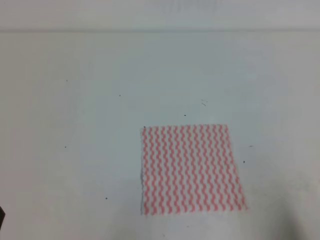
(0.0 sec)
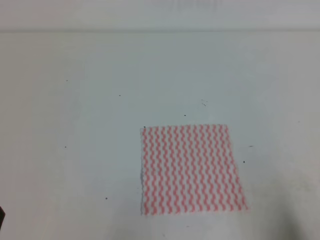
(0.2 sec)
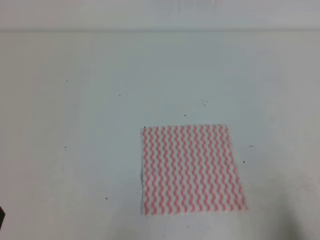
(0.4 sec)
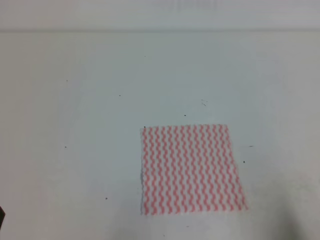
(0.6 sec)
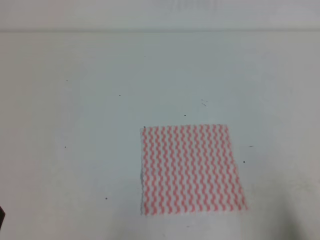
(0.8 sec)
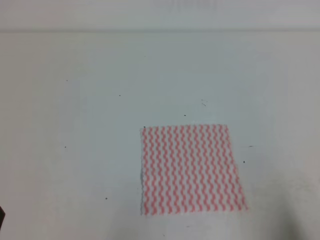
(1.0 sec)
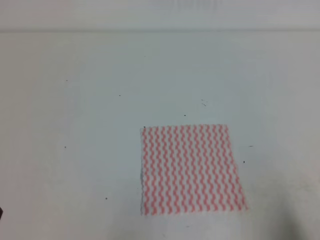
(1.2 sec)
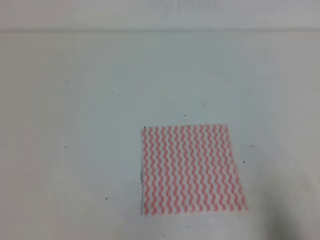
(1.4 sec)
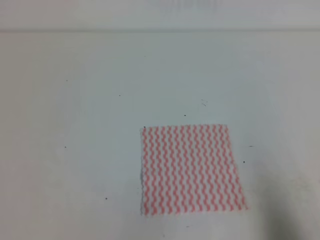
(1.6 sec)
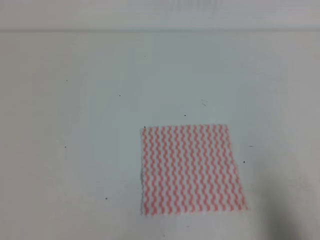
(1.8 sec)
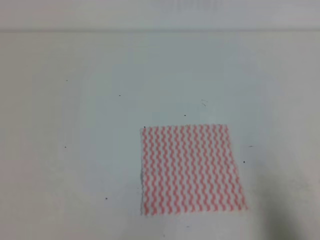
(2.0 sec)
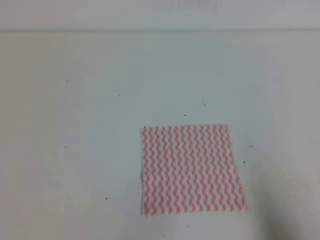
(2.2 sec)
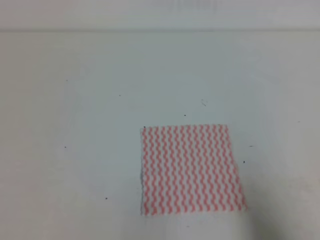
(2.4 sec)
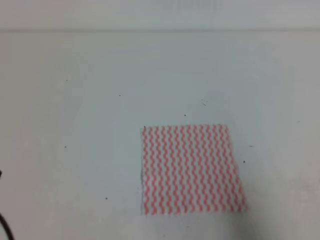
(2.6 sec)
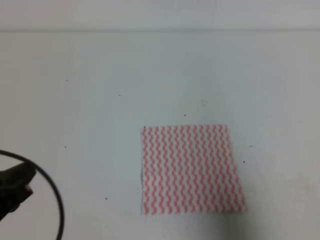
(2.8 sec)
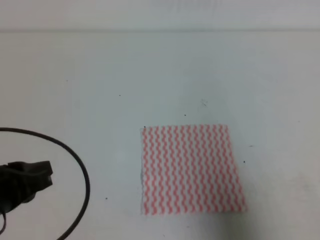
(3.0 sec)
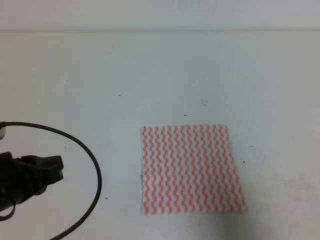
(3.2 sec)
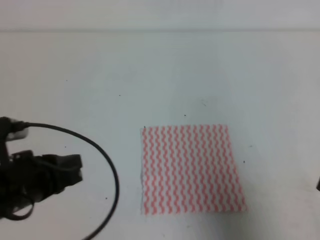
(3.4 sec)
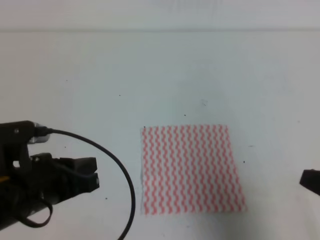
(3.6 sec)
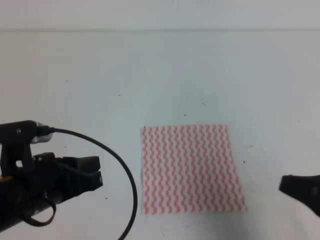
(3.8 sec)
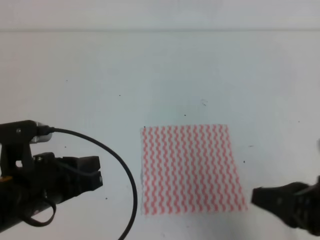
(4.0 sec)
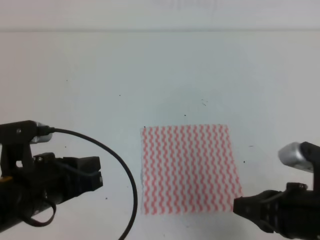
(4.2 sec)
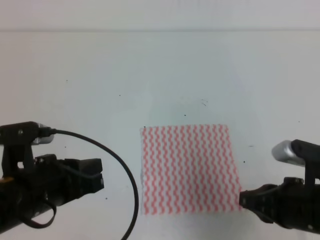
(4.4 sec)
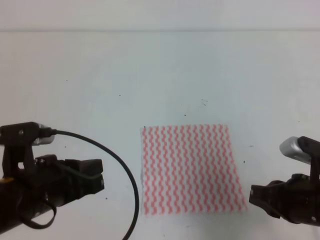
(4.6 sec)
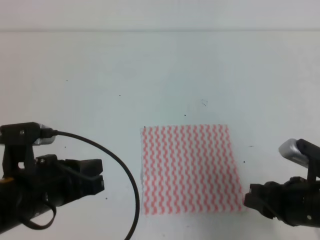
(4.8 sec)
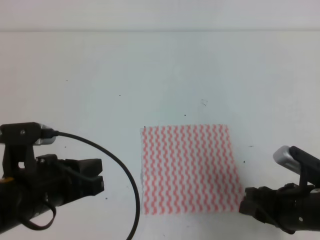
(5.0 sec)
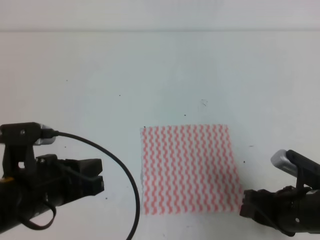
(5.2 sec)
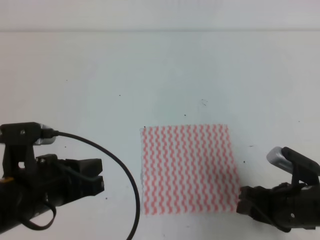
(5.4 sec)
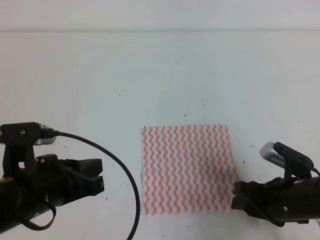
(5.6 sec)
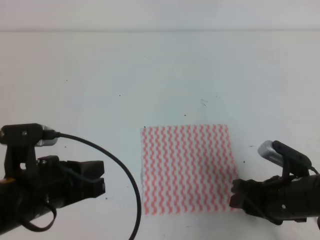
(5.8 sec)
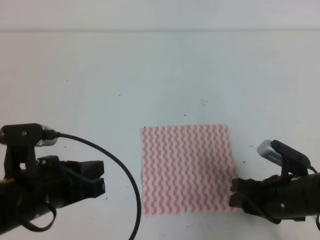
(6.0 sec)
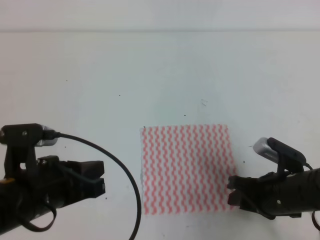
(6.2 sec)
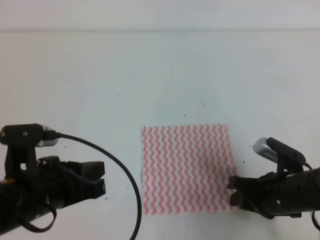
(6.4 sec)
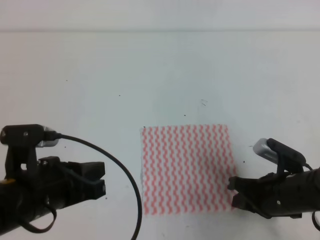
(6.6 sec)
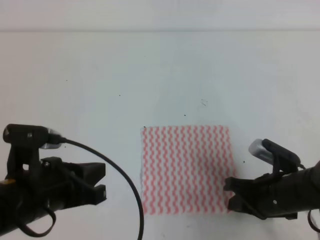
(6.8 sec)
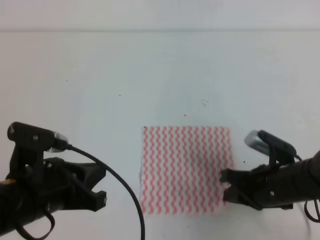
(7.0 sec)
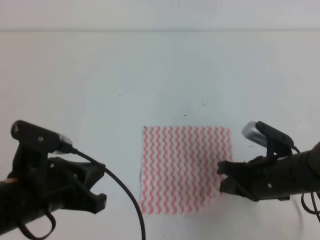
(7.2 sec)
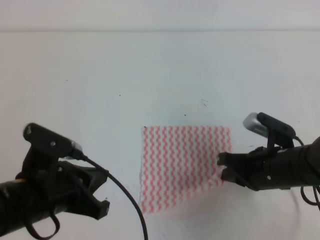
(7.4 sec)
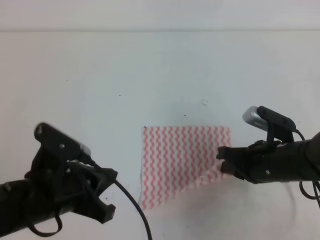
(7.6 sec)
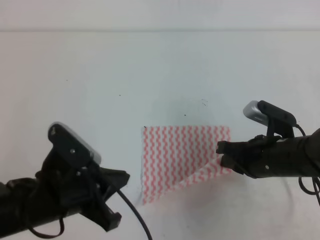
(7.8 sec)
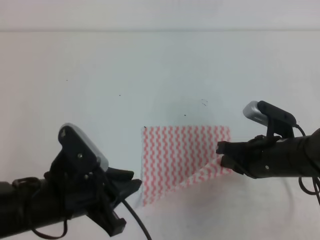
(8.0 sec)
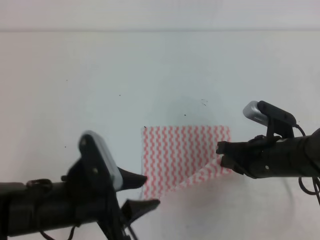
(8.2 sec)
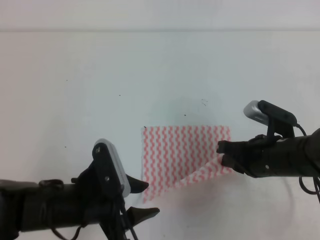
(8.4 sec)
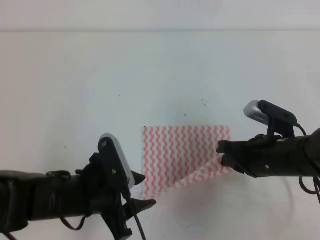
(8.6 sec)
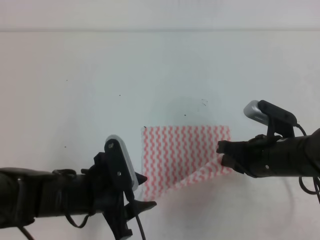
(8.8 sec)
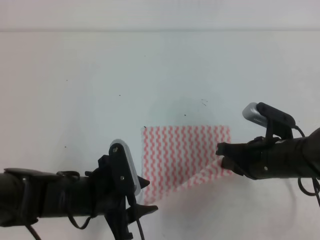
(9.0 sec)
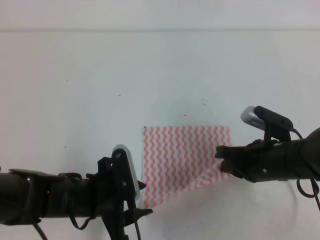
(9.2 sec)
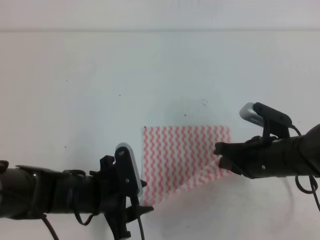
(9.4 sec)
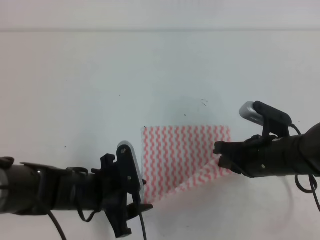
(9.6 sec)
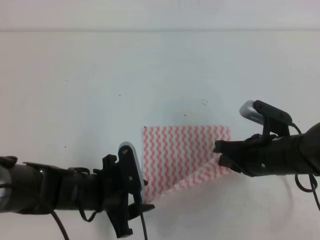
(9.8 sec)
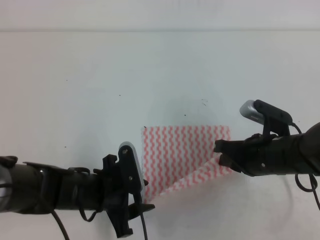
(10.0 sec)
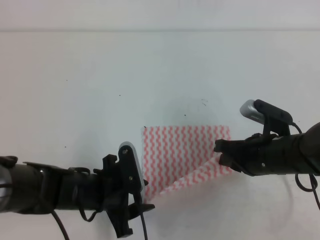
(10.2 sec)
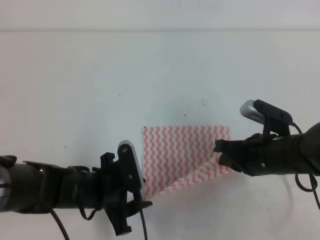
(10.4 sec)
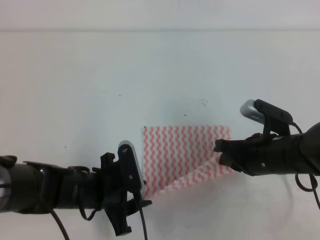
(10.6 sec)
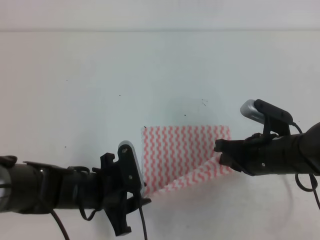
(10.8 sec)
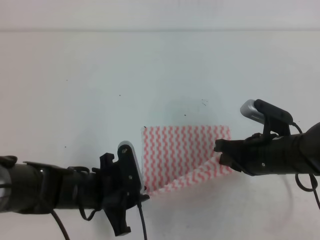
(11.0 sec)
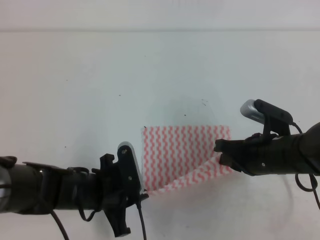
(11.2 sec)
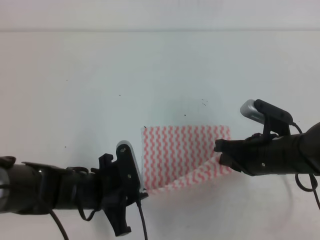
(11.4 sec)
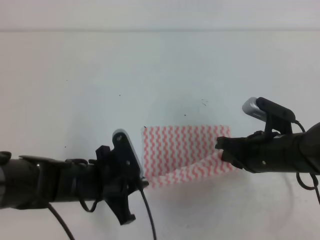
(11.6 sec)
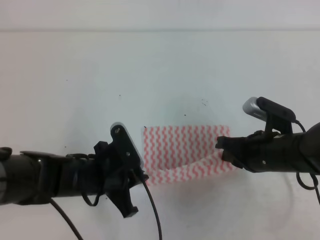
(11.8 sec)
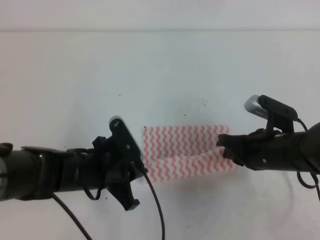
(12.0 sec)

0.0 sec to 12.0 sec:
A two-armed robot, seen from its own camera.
1.6 sec to 3.0 sec: The right gripper shifts roughly 5 cm upward. Meanwhile the left gripper is displaced forward and upward by some 10 cm.
3.0 sec to 4.4 sec: The left gripper heads to the right, covering some 5 cm; the right gripper travels to the left, forward and downward by approximately 10 cm.
4.4 sec to 6.0 sec: The right gripper shifts roughly 10 cm downward, and opens its fingers.
6.0 sec to 7.6 sec: The right gripper moves roughly 5 cm, and closes up.
7.6 sec to 9.0 sec: The left gripper travels downward by some 5 cm, and opens its fingers.
9.0 sec to 10.4 sec: There are only small adjustments of the grippers.
10.4 sec to 12.0 sec: The left gripper closes up.

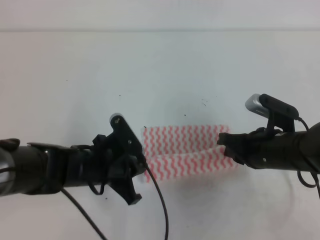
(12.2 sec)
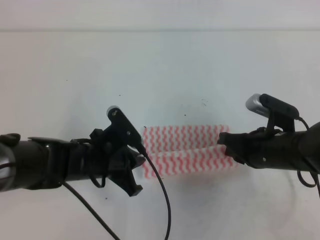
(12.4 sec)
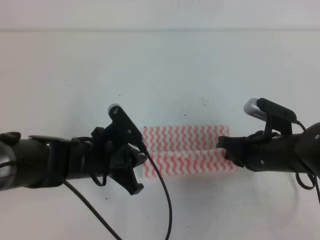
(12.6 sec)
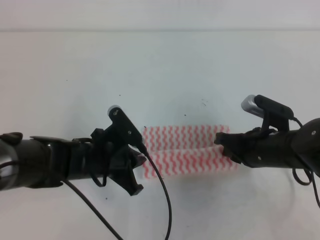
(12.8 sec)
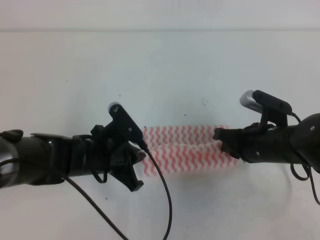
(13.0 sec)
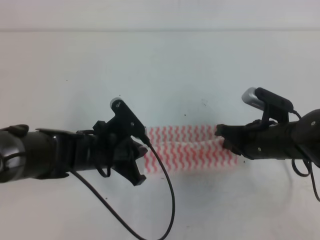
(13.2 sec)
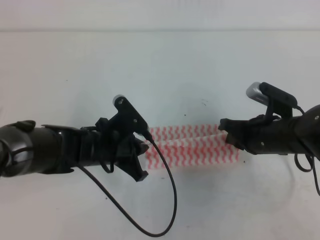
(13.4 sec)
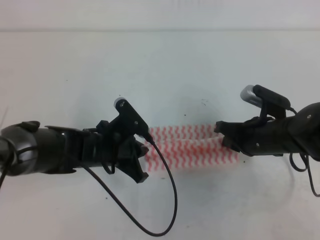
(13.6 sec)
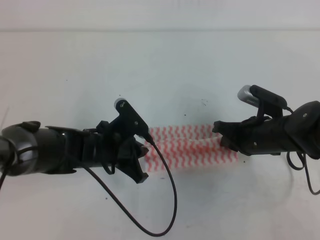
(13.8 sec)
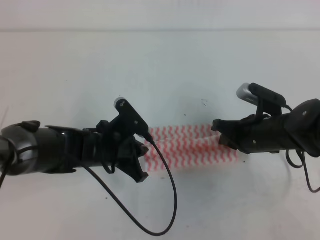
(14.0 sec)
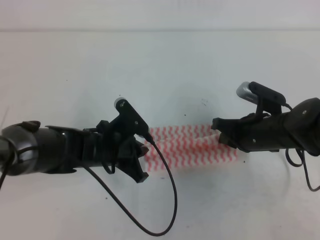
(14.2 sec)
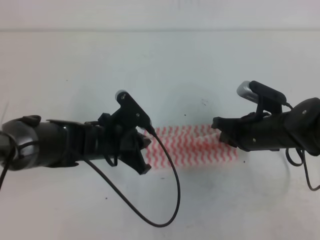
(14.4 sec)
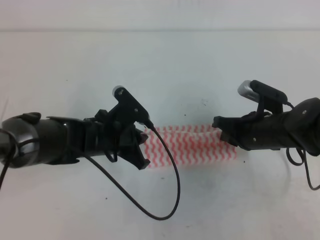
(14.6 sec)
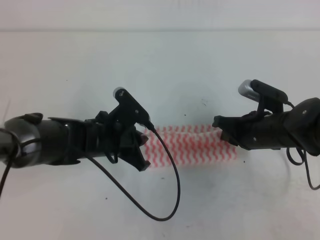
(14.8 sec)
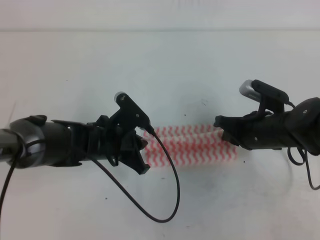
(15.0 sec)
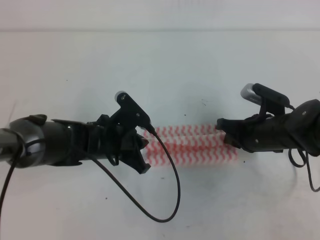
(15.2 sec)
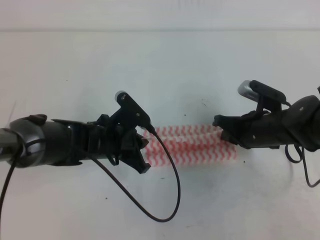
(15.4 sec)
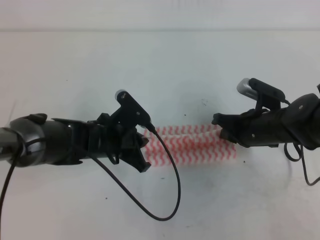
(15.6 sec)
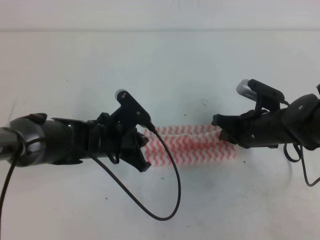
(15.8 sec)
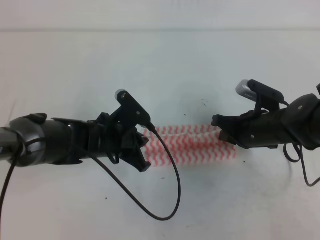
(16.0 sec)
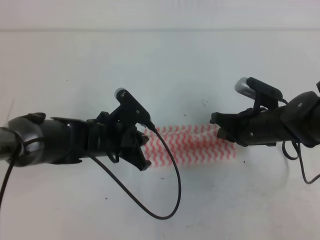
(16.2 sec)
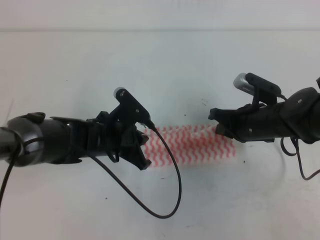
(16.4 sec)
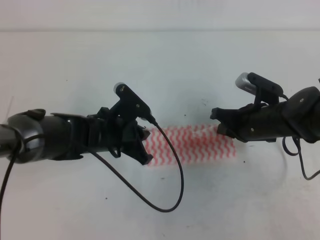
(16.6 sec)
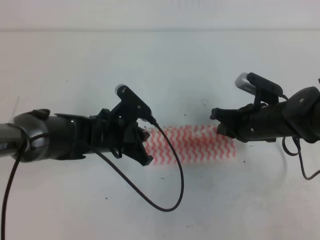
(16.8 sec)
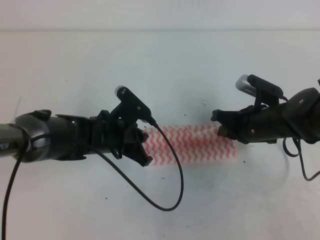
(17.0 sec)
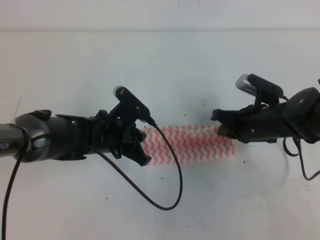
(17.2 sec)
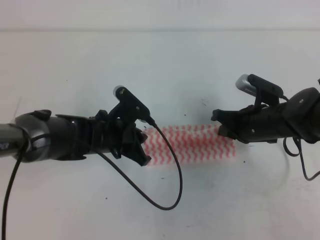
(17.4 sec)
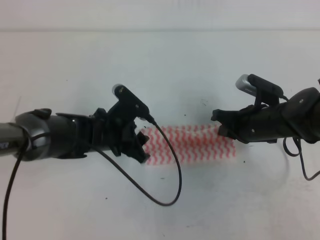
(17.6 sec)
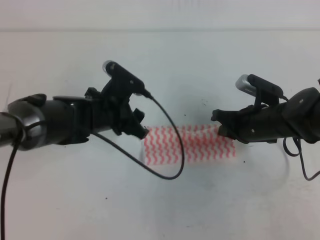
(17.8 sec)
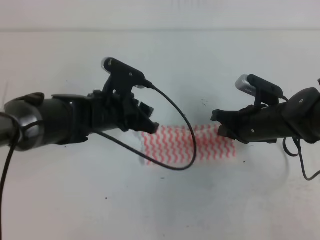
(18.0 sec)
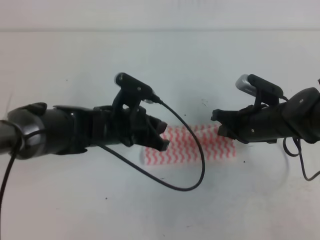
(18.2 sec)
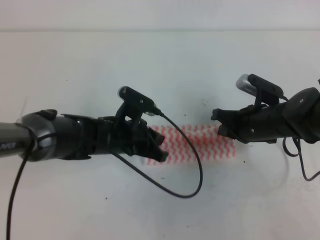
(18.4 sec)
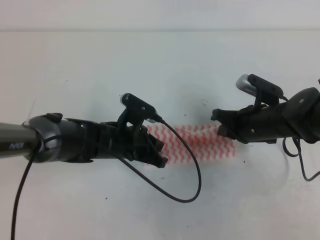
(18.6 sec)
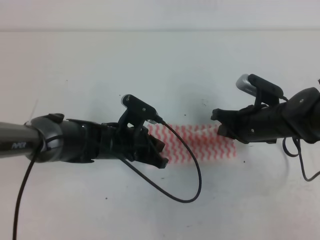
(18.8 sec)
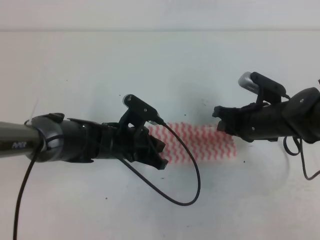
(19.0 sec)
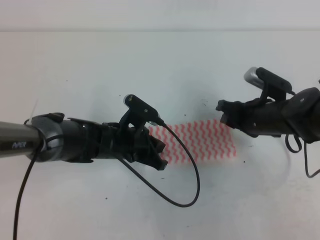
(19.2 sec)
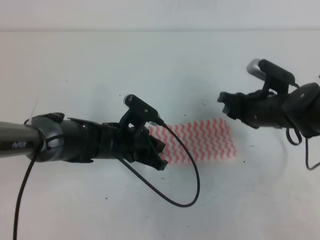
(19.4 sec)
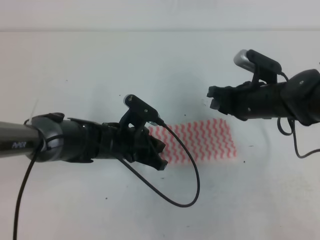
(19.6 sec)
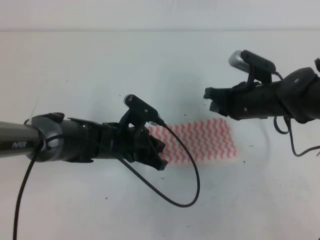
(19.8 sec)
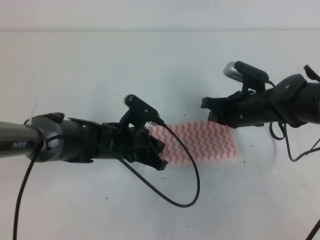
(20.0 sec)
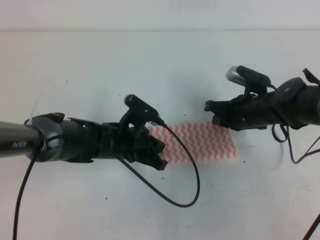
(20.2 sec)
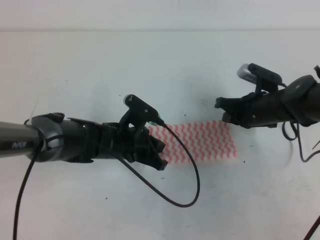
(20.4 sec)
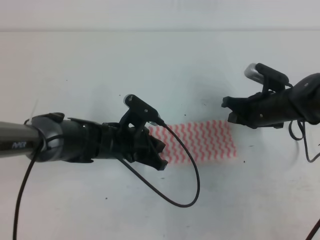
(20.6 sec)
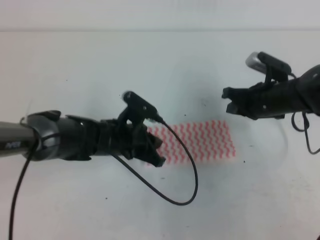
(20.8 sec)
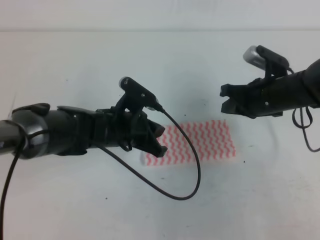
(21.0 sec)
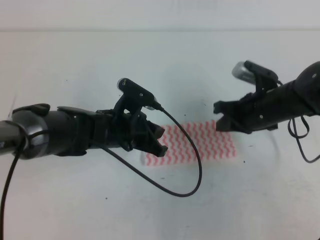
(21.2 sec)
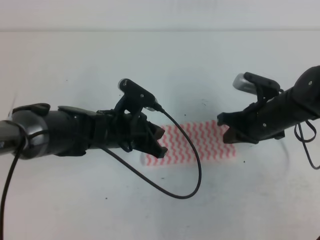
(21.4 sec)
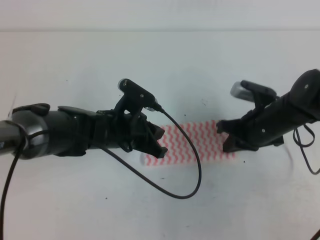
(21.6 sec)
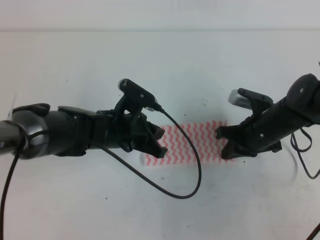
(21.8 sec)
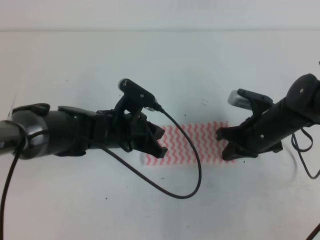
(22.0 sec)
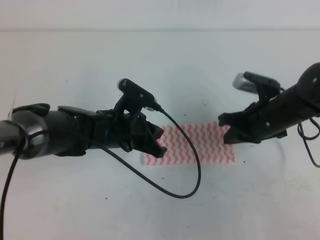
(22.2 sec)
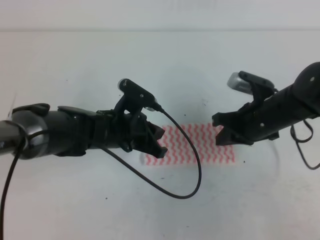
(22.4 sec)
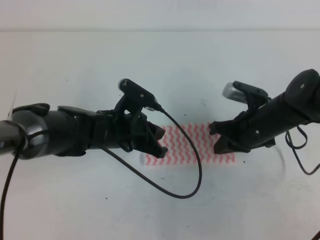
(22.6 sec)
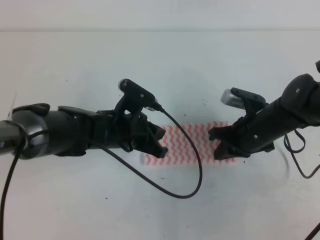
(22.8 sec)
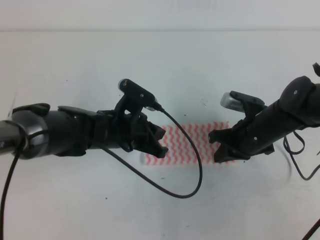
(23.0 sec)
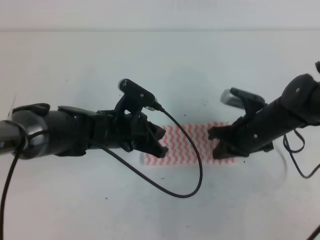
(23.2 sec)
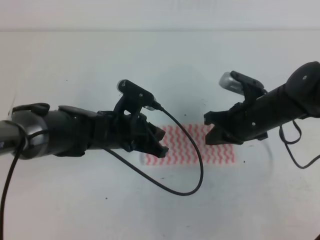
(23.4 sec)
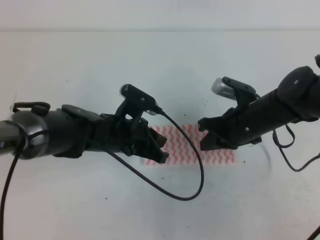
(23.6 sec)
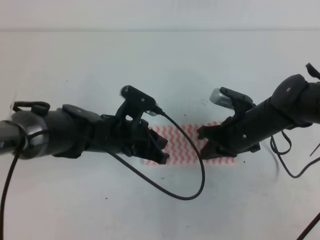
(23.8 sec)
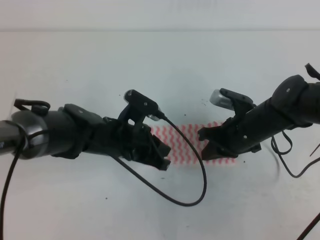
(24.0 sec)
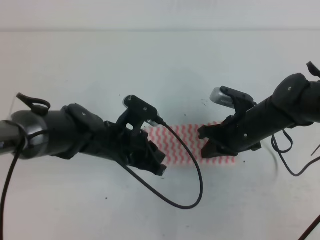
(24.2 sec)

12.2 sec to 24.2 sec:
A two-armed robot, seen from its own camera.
12.2 sec to 15.2 sec: The grippers make only small movements.
15.2 sec to 16.6 sec: The grippers move only a little.
16.6 sec to 18.2 sec: The left gripper opens, then closes once more.
18.2 sec to 19.8 sec: The left gripper goes approximately 5 cm downward; the right gripper opens and closes again.
19.8 sec to 21.2 sec: The grippers make only small movements.
21.2 sec to 24.2 sec: The grippers stay close to where they were, moving slightly.
